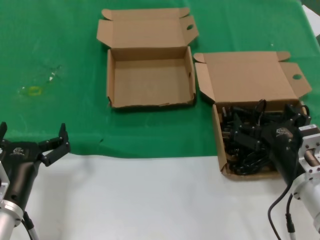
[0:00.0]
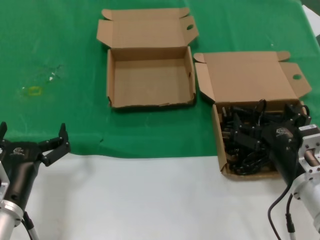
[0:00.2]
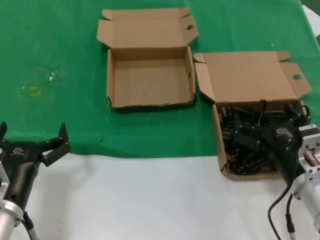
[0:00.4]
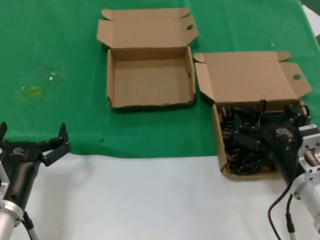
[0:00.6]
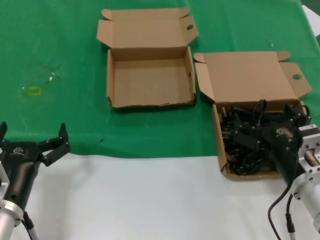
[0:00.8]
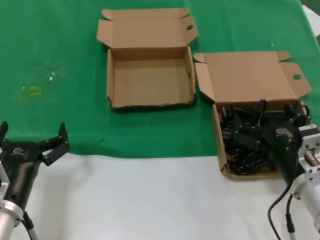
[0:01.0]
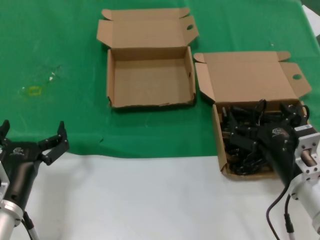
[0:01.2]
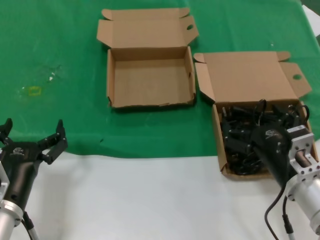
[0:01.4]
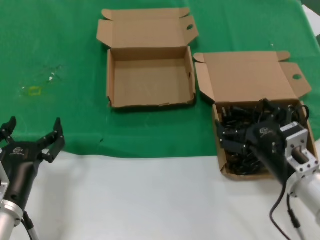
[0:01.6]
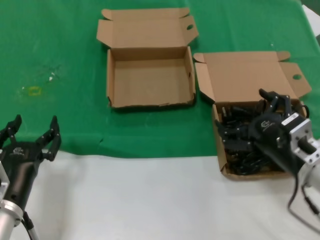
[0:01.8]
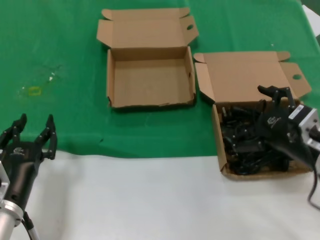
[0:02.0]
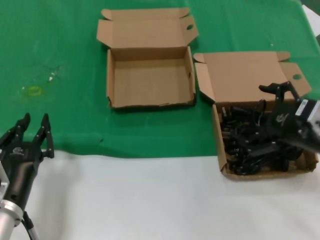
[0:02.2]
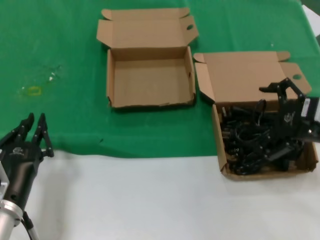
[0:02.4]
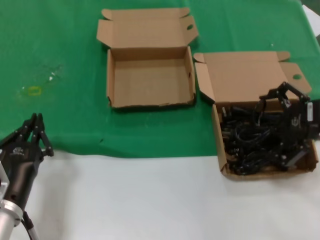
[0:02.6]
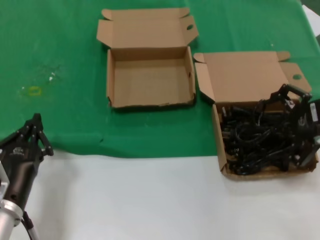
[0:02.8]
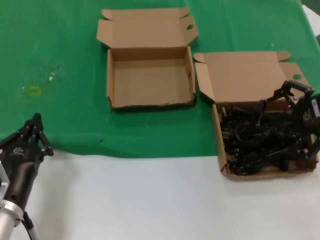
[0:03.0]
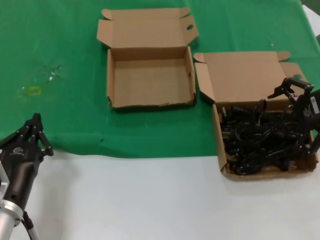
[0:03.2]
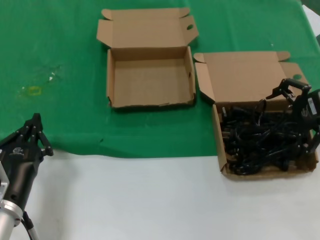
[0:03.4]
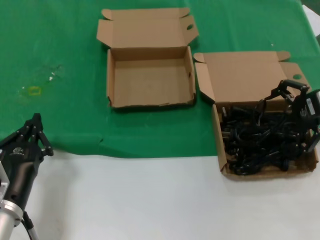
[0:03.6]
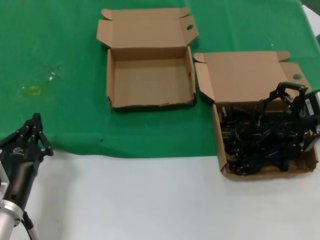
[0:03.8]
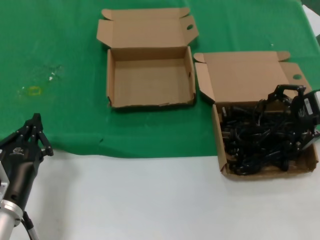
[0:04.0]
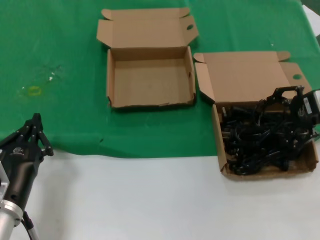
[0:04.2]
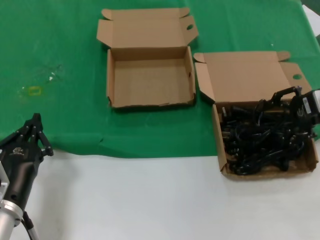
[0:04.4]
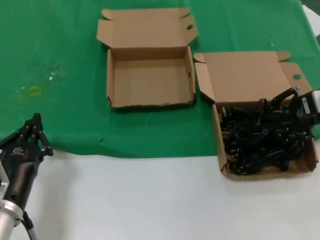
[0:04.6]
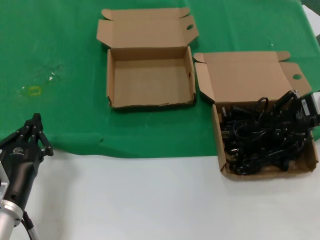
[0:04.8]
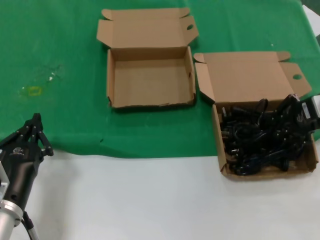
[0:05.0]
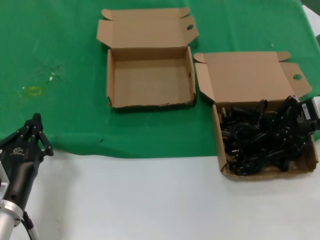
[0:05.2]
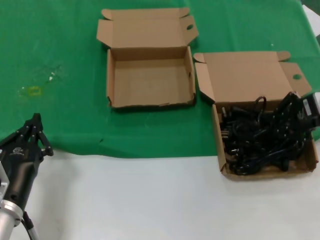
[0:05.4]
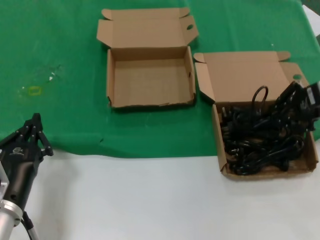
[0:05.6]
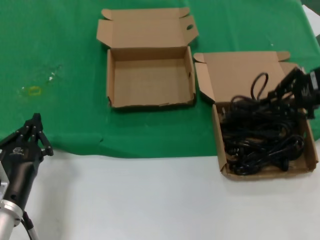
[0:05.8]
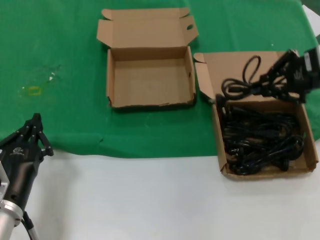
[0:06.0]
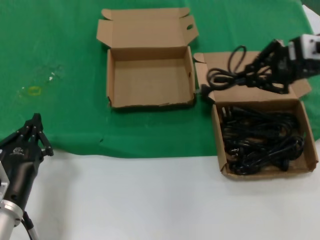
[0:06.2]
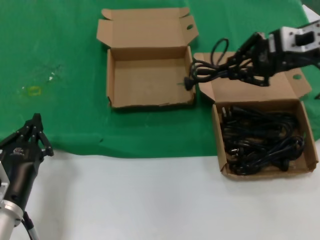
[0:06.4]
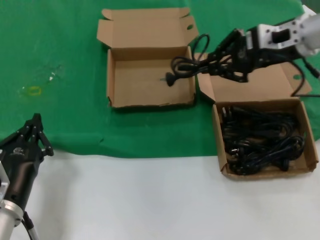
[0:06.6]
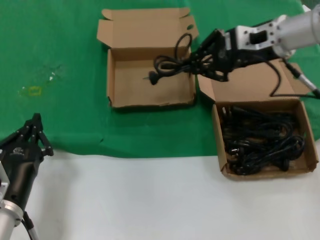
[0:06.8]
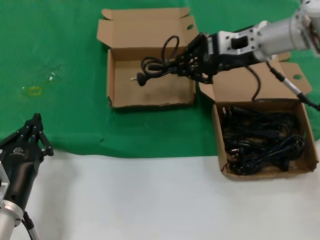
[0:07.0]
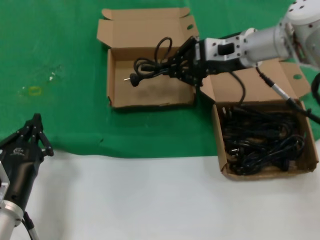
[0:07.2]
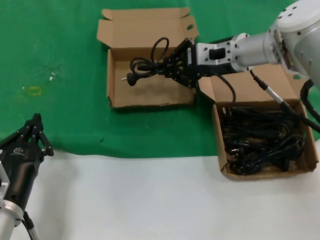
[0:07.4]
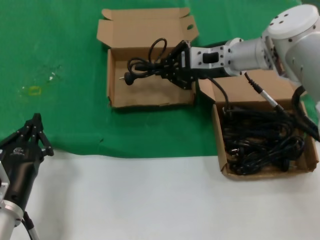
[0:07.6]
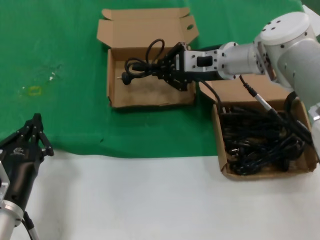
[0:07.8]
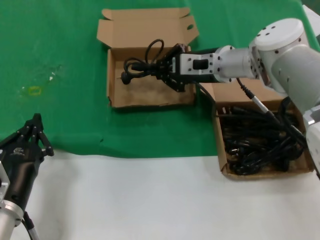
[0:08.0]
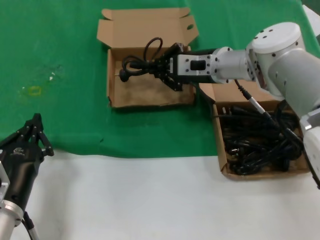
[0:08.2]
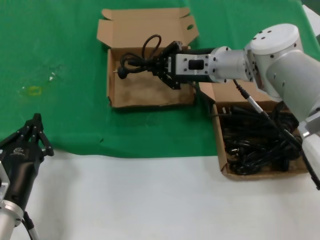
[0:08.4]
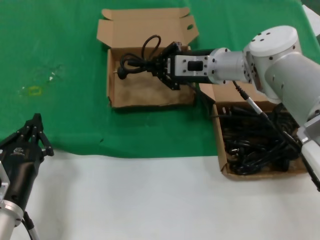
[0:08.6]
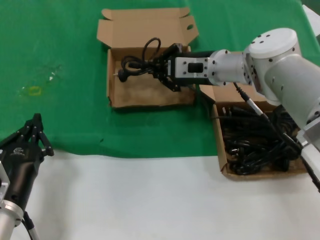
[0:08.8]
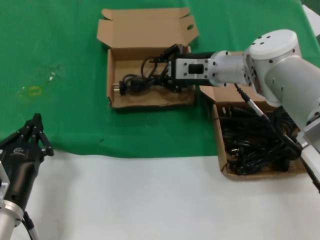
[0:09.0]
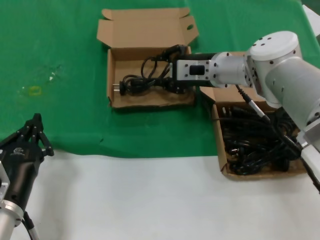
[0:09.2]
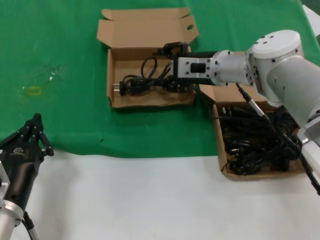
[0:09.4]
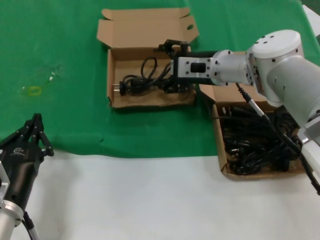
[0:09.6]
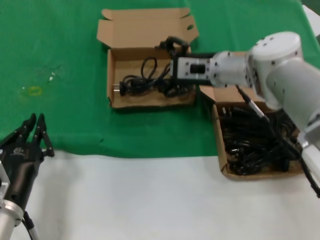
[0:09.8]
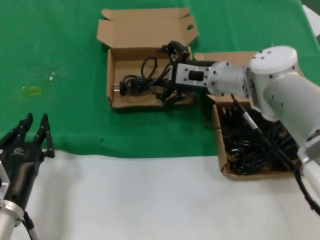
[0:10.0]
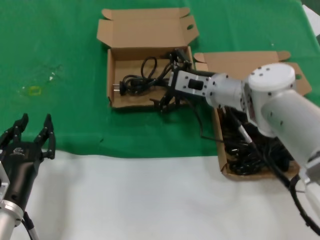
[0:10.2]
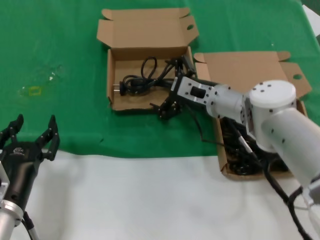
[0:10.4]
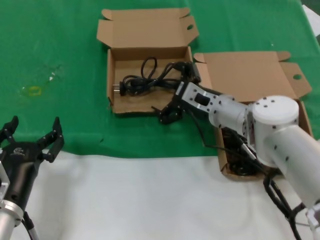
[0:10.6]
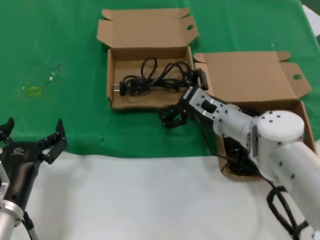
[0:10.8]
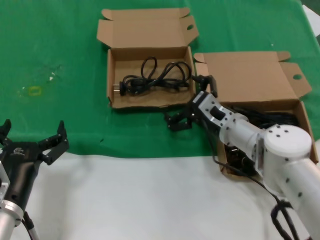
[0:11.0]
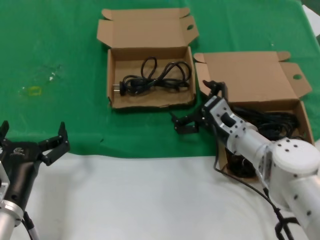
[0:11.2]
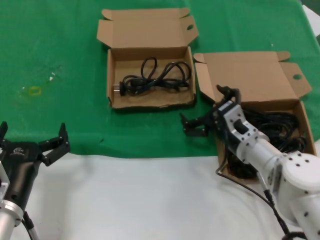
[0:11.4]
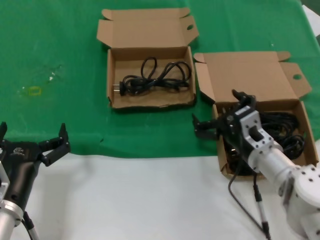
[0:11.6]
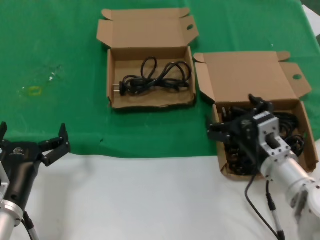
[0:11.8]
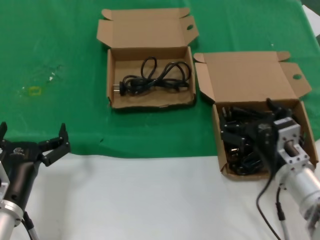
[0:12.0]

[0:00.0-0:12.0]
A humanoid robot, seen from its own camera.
Task of the whole recording: take the parts from the box containing them and put them into an empty box.
Step, 0:00.0 to 0:05.2: Grasp the data cable.
Step, 0:05.4 to 0:09.4: Place the data cable in the another box.
0:00.0 to 0:01.6: There are only small adjustments of the hands.
0:01.6 to 0:03.0: The right hand goes about 25 cm upward, to the right and forward.
0:03.0 to 0:04.4: There are only small adjustments of the hands.
0:04.4 to 0:06.0: The right hand goes about 5 cm upward.
0:06.0 to 0:07.6: The right hand travels to the left and forward by approximately 20 cm.
0:07.6 to 0:09.0: There are only small adjustments of the hands.
0:09.0 to 0:10.4: The right hand travels downward by roughly 5 cm.
0:10.4 to 0:12.0: The right hand travels backward, to the right and downward by approximately 20 cm.

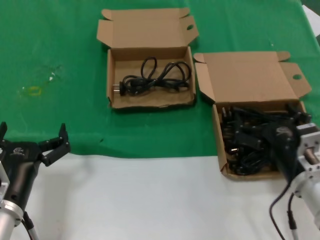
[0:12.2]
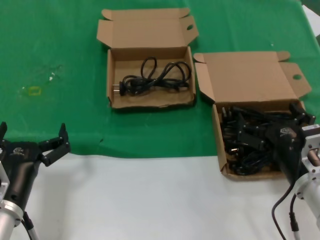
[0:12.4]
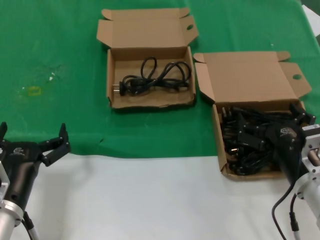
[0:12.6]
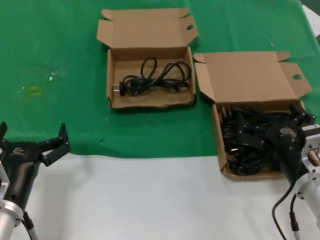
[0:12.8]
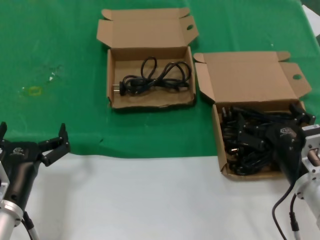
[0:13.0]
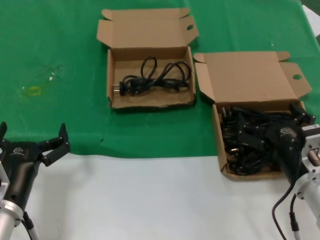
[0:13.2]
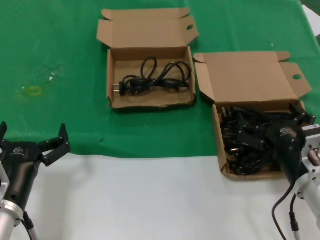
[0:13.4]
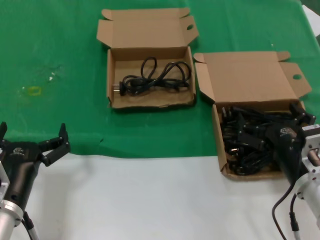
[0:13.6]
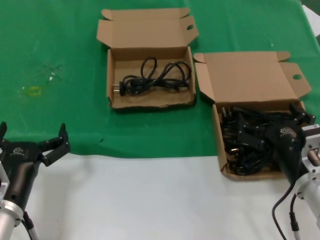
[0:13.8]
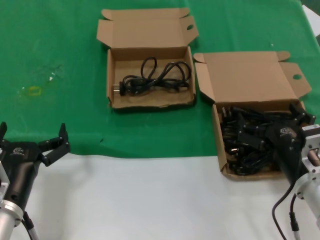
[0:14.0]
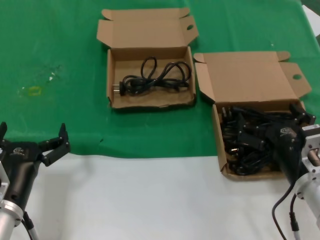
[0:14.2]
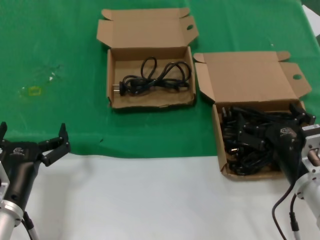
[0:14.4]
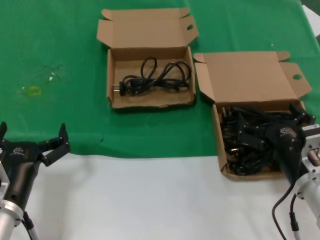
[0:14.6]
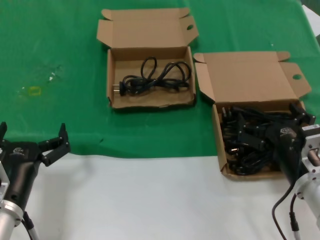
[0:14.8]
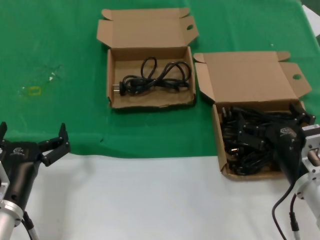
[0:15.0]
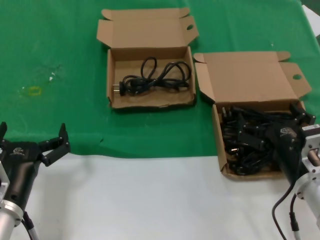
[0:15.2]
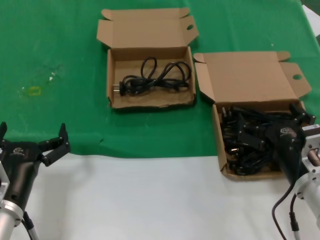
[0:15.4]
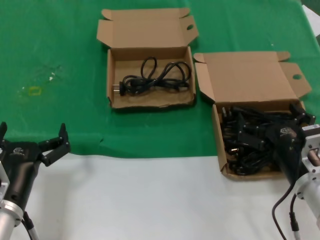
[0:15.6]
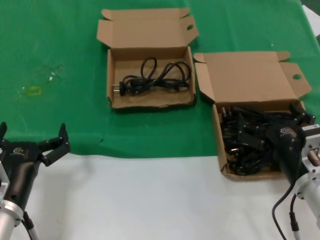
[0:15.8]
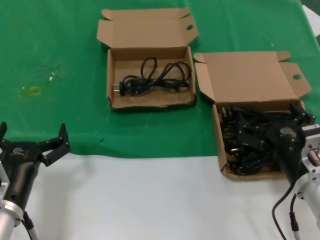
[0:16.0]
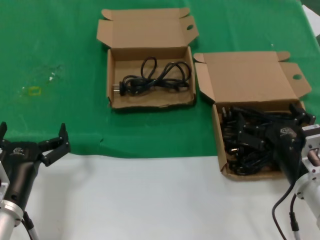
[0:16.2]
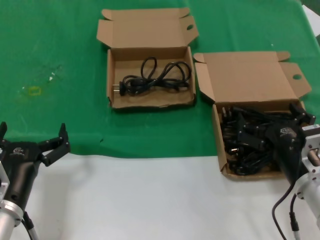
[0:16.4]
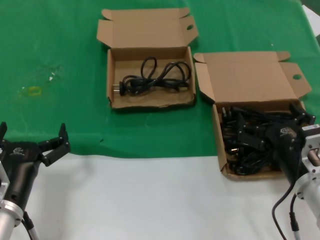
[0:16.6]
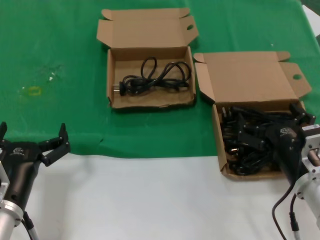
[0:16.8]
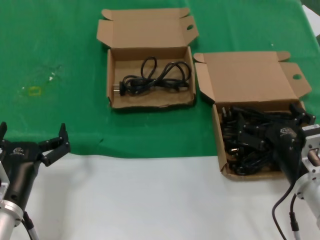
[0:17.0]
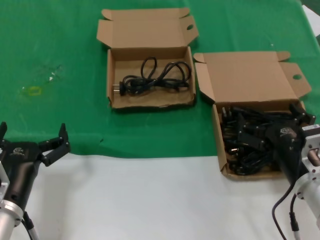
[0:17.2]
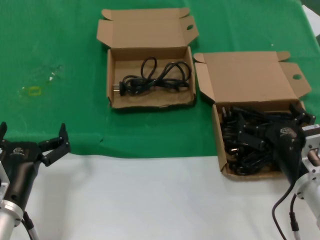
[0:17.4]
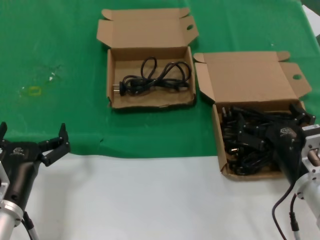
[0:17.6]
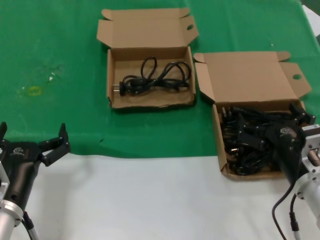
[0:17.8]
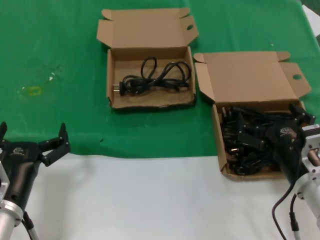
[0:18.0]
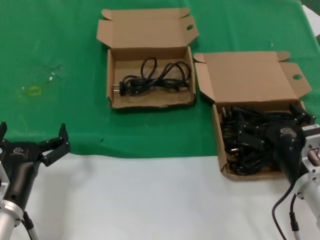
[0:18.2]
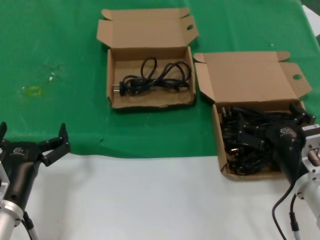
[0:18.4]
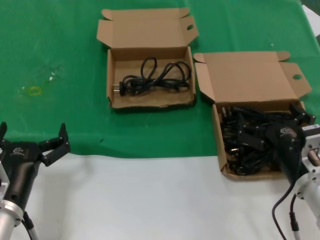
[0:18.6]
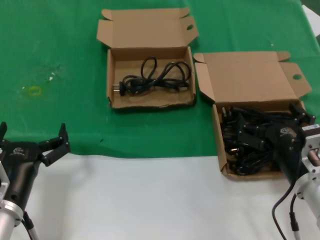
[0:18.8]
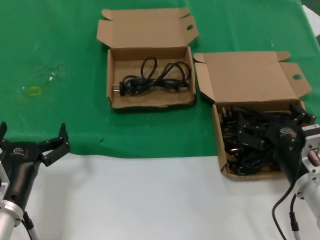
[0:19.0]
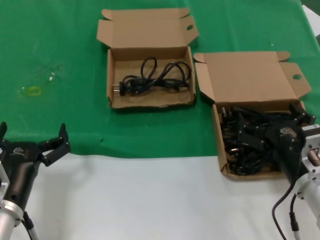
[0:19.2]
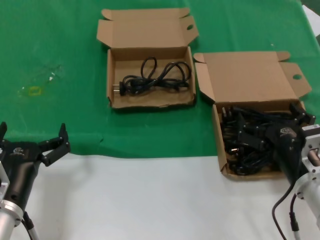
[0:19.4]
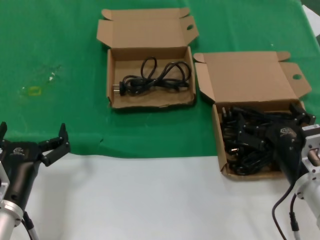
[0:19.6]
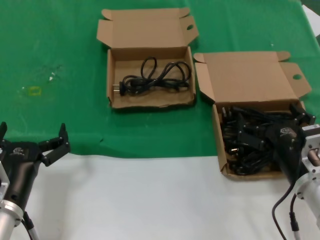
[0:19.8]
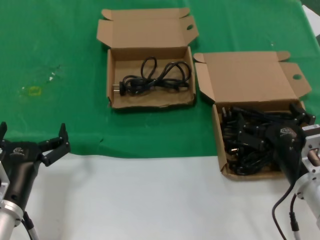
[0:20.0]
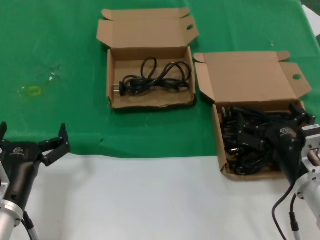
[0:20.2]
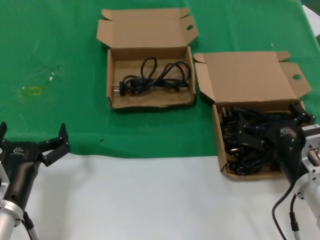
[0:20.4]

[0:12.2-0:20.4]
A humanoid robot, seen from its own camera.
Task of the whole recording: take the parts from the box containing them and put them into an empty box.
0:12.2 to 0:20.4: Both hands stay about where they are.

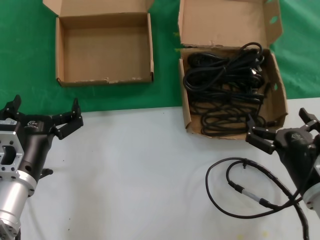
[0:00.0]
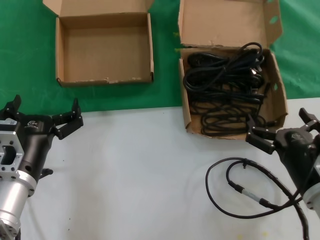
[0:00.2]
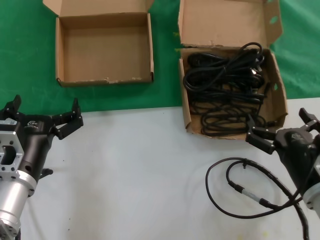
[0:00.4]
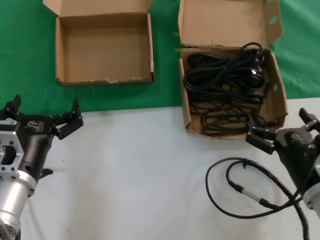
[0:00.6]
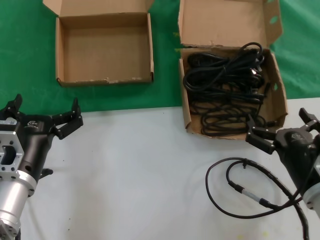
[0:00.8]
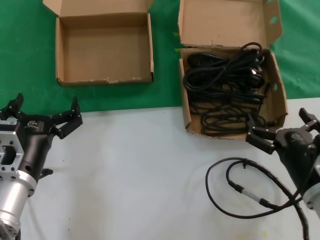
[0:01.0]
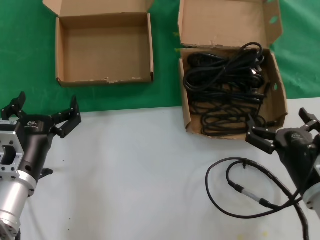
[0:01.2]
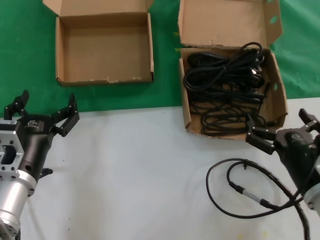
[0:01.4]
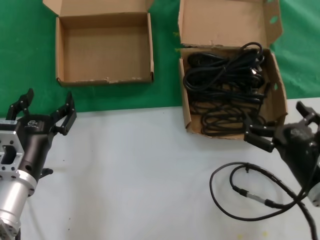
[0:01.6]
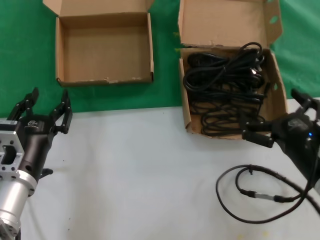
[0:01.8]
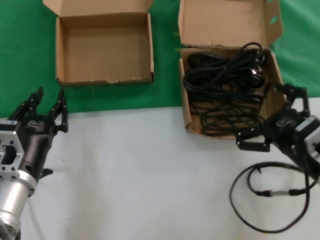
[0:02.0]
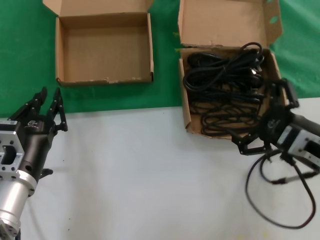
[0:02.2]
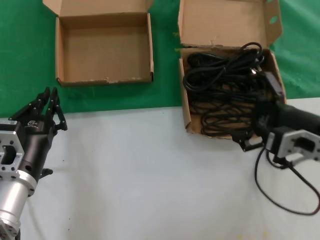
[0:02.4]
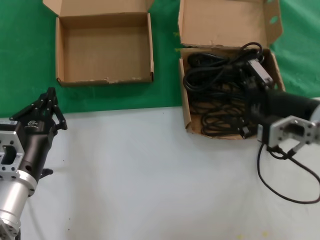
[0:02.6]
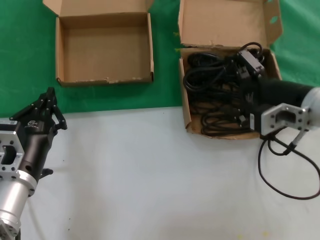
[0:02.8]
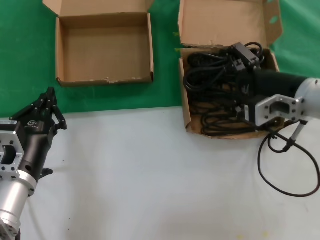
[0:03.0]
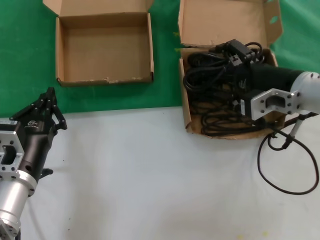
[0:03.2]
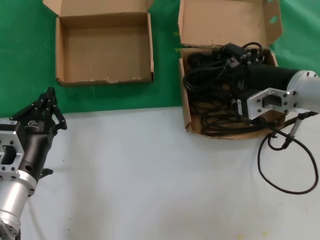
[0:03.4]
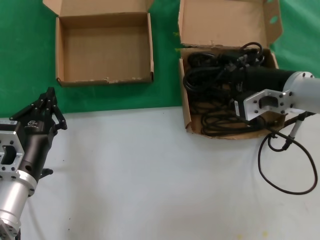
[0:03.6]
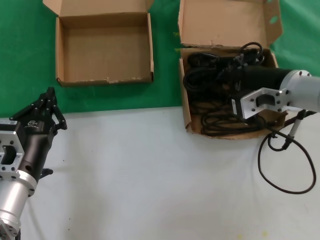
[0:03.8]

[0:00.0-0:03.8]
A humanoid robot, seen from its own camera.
Task of the whole recording: take the parts from the box containing them and put them into an empty box.
0:00.0 to 0:01.2: The two hands keep their place.
0:01.2 to 0:02.6: The right hand travels upward and forward by approximately 15 cm.
0:02.6 to 0:03.8: The right hand is displaced forward by approximately 5 cm.
